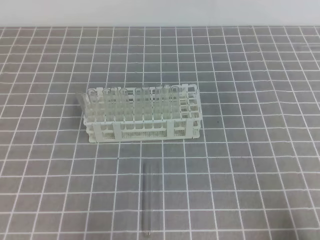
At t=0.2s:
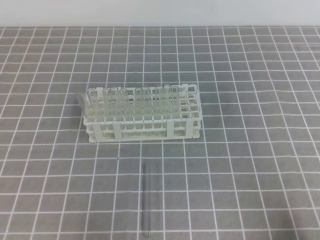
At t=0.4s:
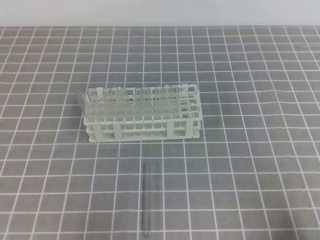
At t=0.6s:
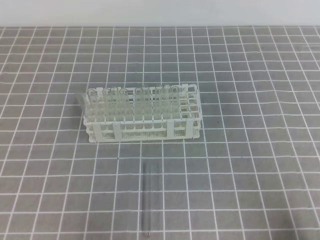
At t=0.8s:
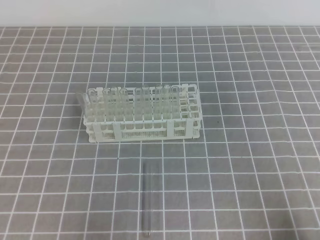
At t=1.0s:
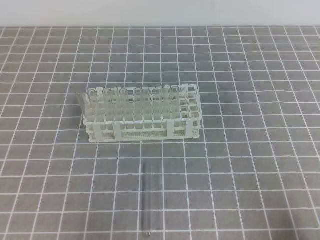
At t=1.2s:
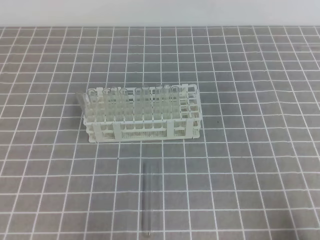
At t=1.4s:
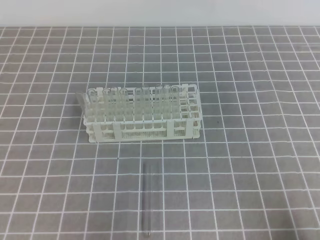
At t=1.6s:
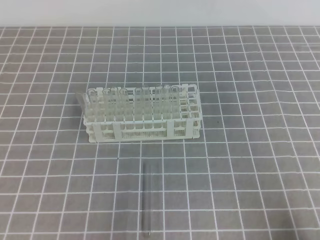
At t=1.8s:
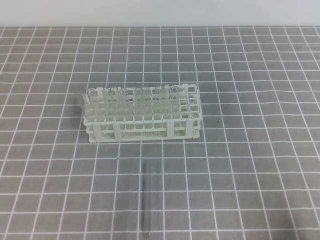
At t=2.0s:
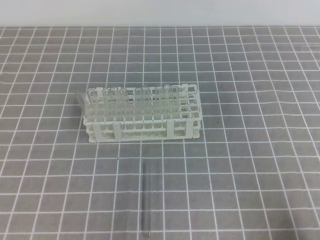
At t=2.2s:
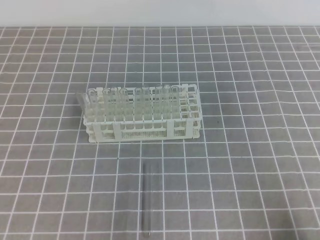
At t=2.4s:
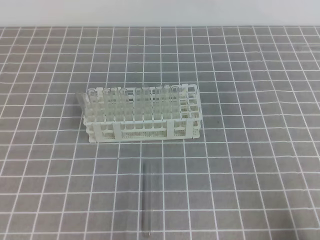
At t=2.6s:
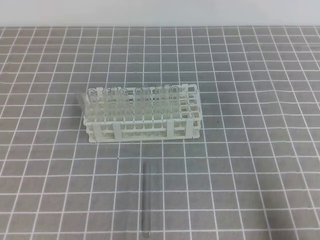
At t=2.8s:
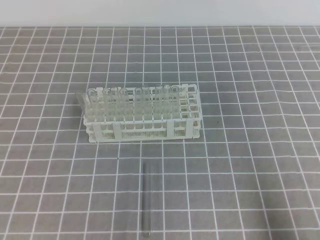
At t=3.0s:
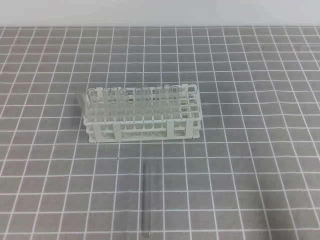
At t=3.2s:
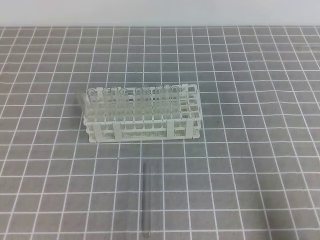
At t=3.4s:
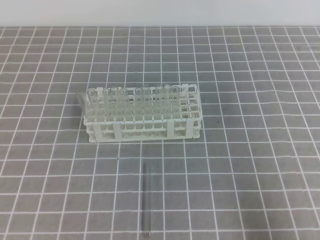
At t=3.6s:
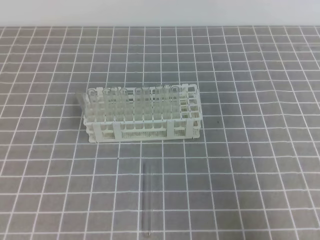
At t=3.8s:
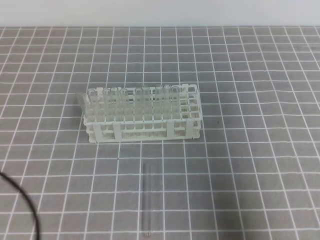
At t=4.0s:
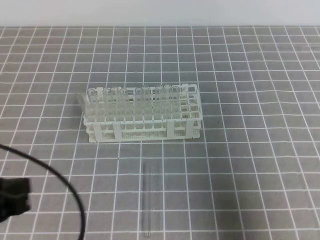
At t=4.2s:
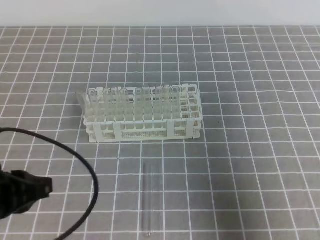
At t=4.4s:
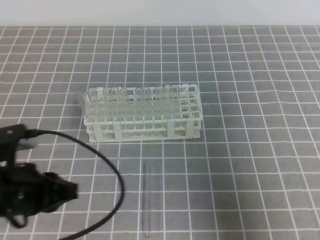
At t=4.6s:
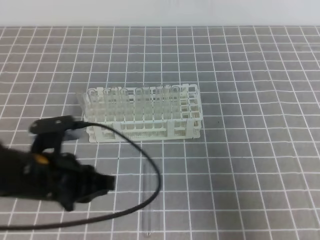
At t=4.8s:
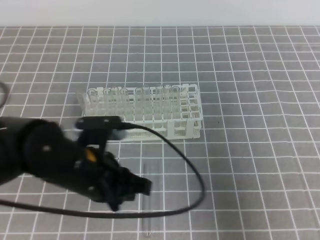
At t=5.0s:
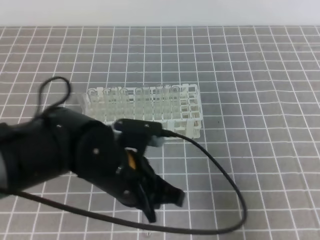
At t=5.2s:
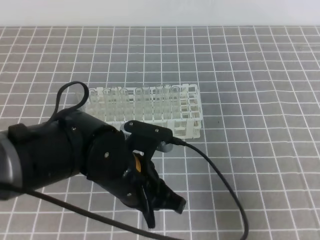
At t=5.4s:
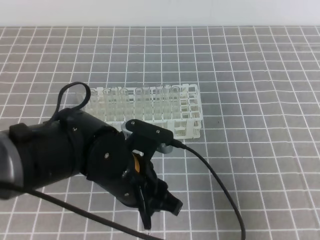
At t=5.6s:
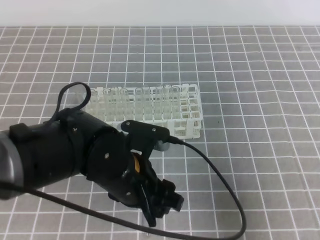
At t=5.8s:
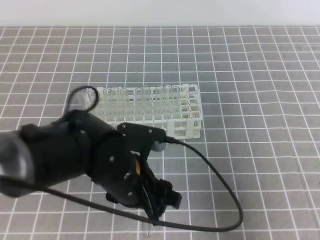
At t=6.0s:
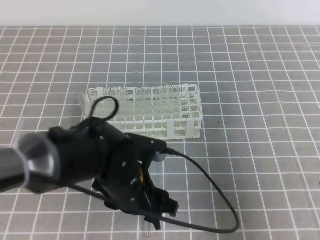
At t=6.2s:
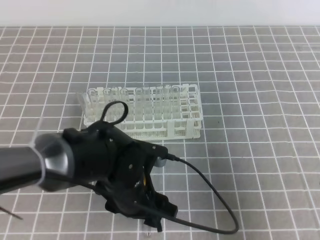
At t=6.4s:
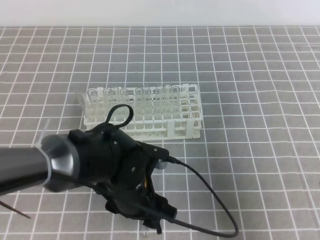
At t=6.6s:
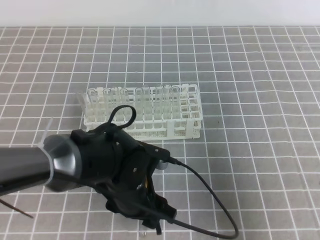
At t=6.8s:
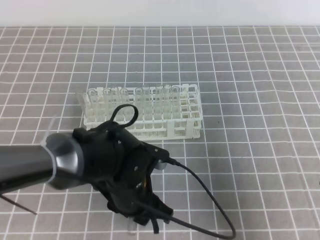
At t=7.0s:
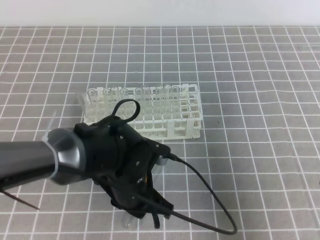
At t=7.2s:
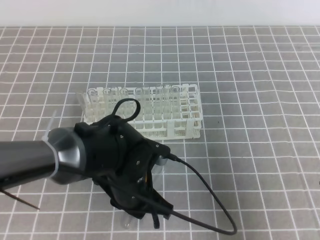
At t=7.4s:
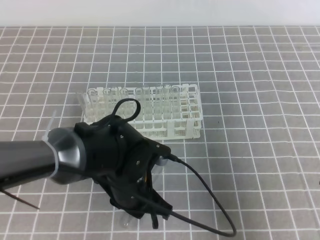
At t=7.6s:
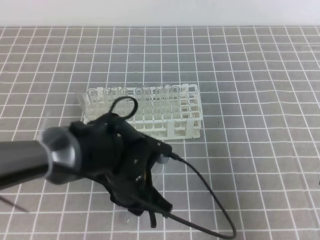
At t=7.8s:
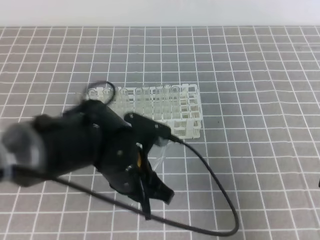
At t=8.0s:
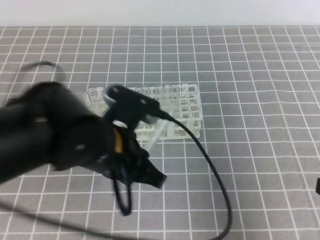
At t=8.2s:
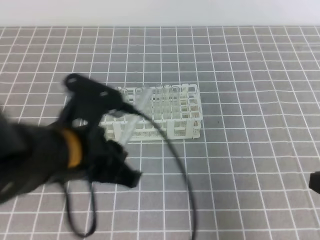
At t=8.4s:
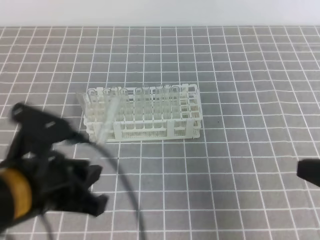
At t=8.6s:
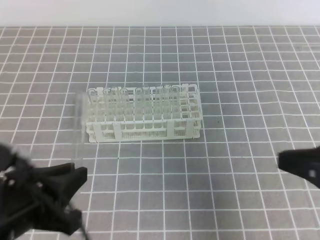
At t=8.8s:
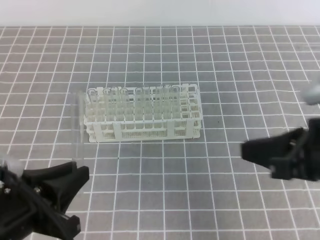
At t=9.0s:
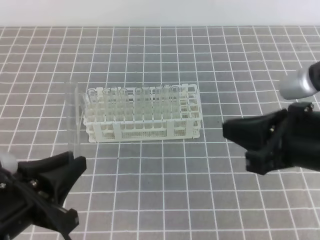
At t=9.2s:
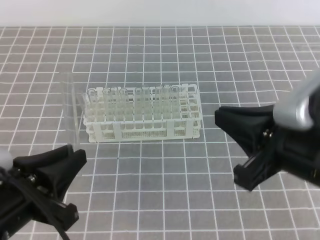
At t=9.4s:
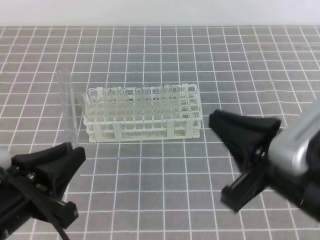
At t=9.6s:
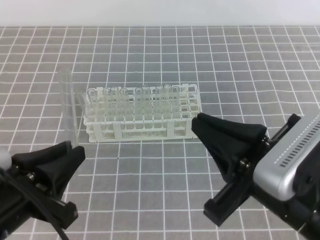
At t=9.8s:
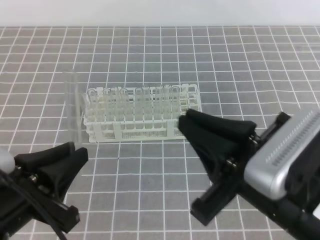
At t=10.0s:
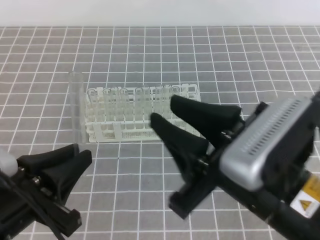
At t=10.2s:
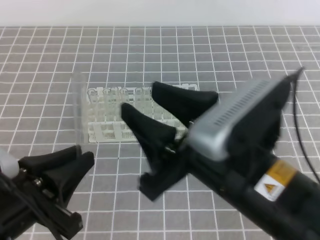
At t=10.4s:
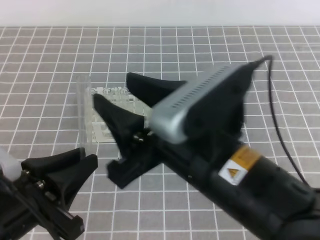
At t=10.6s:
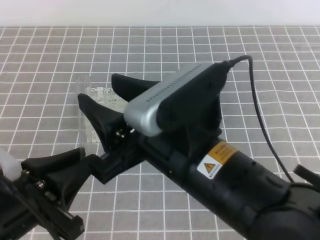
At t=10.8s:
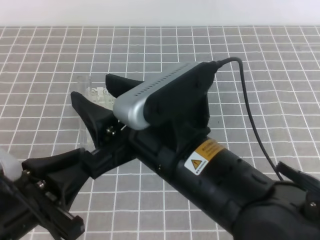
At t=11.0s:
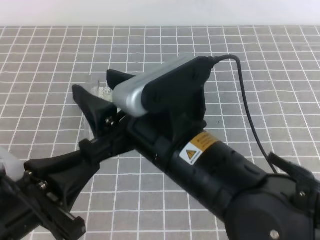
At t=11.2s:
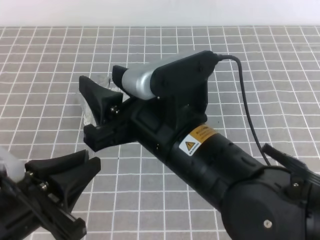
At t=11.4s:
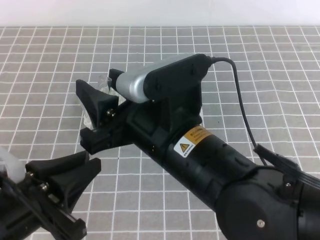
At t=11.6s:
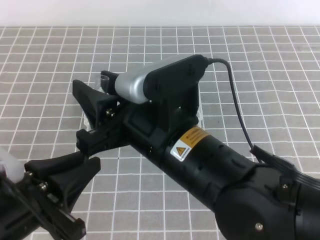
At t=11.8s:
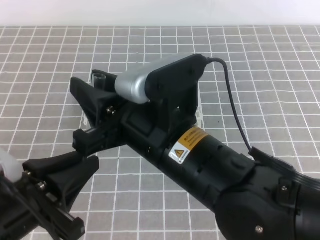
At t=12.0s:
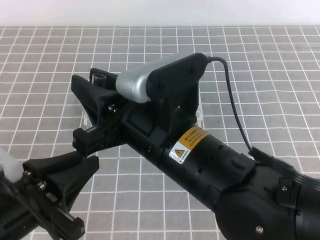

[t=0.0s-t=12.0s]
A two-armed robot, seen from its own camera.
t=3.0s to t=4.4s: The right gripper shifts roughly 10 cm forward and upward, while the left gripper is displaced forward and to the right by some 15 cm.
t=4.4s to t=6.0s: The left gripper is displaced to the right by approximately 15 cm, and opens up.
t=6.0s to t=7.6s: The left gripper closes up.
t=7.6s to t=9.0s: The right gripper moves to the left and upward, about 10 cm; the left gripper is displaced to the left, backward and upward by some 20 cm.
t=9.0s to t=10.4s: The right gripper goes approximately 15 cm to the left, and opens up.
t=10.4s to t=12.0s: The right gripper changes place by some 5 cm, and closes.

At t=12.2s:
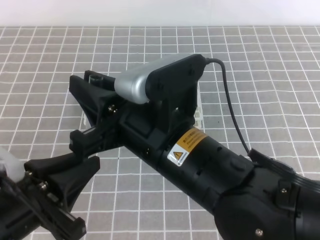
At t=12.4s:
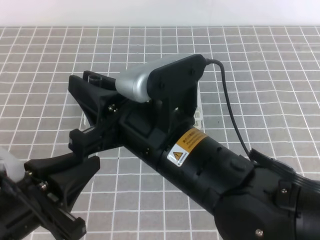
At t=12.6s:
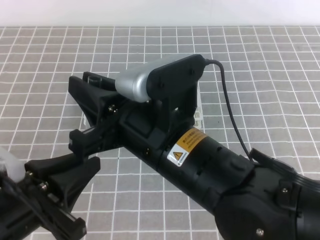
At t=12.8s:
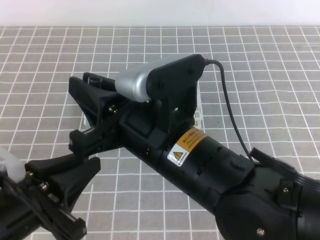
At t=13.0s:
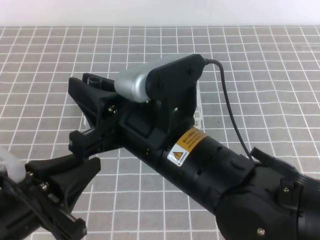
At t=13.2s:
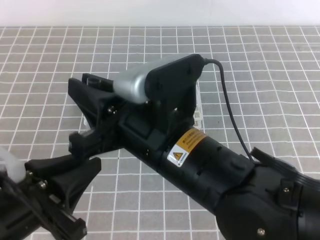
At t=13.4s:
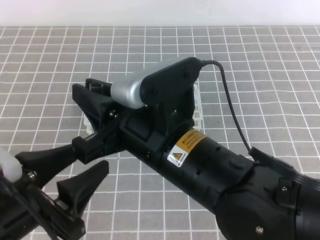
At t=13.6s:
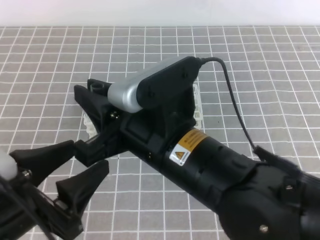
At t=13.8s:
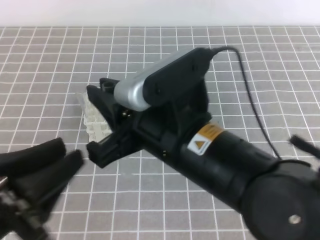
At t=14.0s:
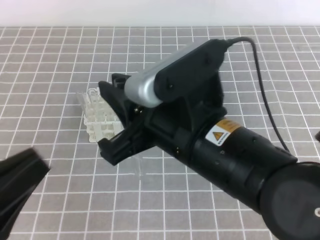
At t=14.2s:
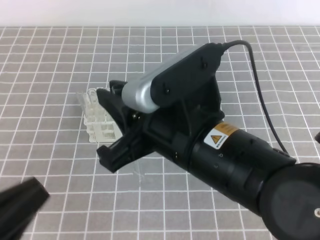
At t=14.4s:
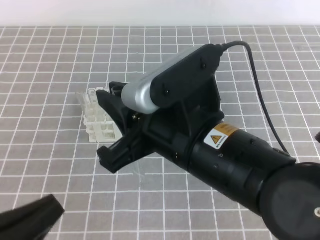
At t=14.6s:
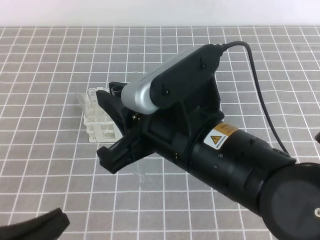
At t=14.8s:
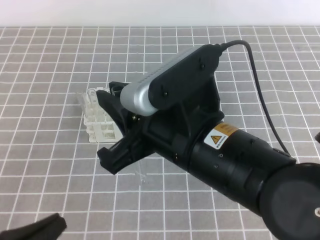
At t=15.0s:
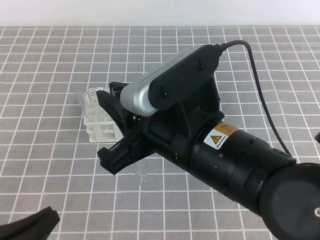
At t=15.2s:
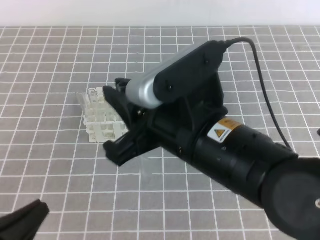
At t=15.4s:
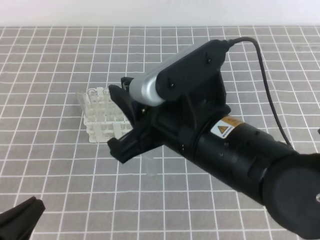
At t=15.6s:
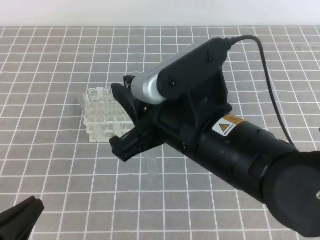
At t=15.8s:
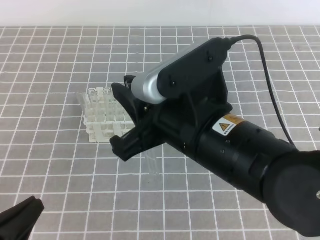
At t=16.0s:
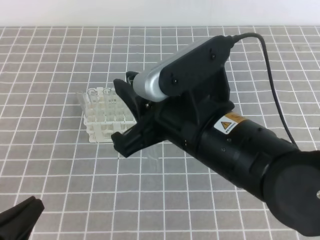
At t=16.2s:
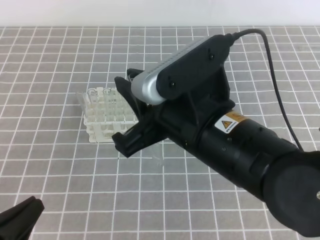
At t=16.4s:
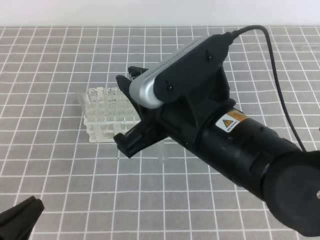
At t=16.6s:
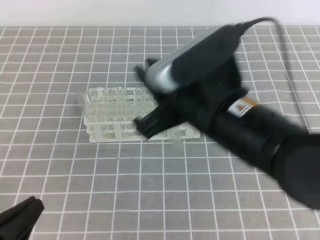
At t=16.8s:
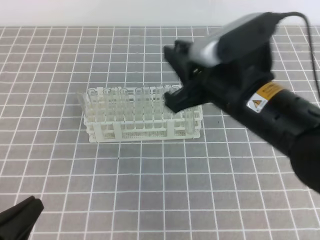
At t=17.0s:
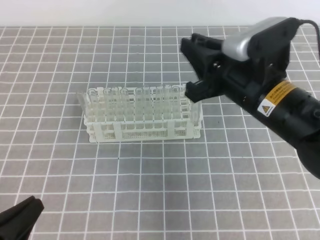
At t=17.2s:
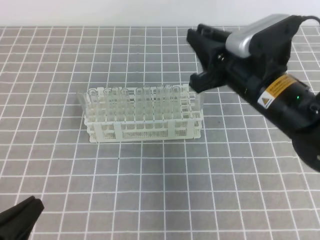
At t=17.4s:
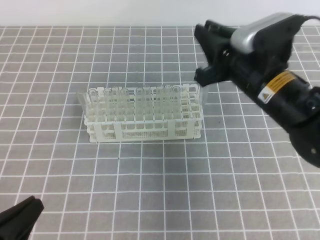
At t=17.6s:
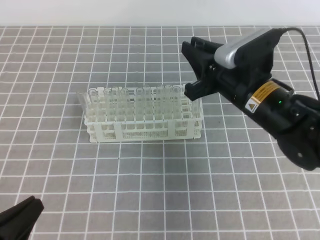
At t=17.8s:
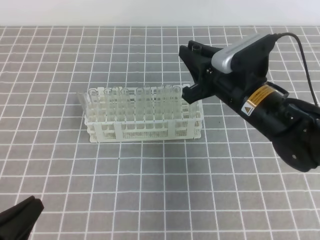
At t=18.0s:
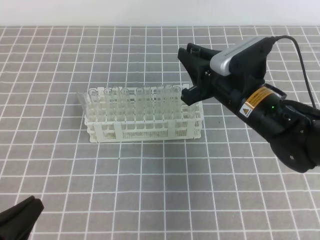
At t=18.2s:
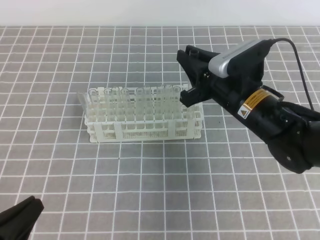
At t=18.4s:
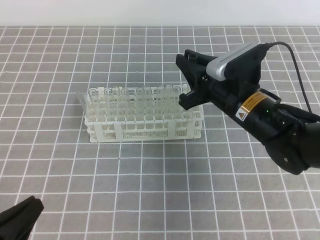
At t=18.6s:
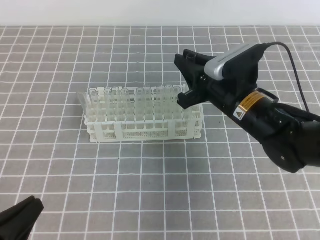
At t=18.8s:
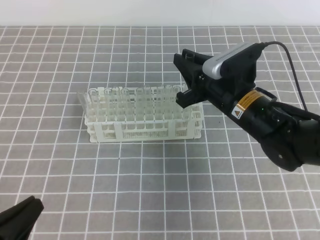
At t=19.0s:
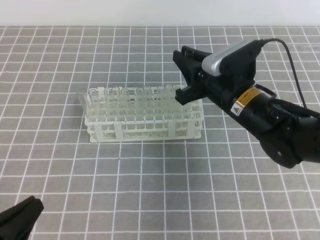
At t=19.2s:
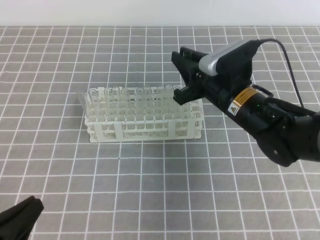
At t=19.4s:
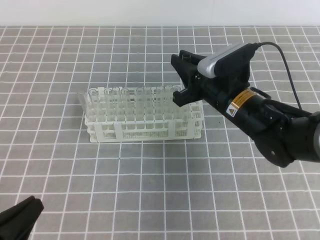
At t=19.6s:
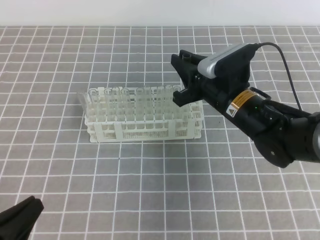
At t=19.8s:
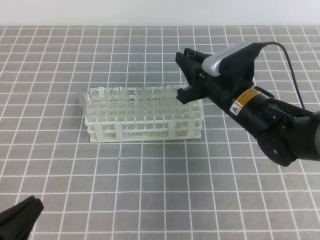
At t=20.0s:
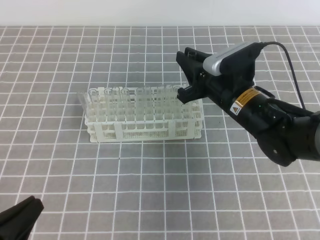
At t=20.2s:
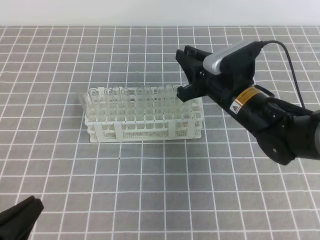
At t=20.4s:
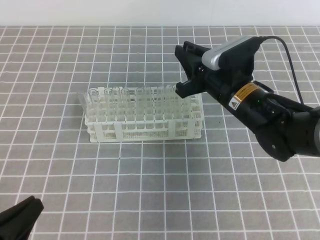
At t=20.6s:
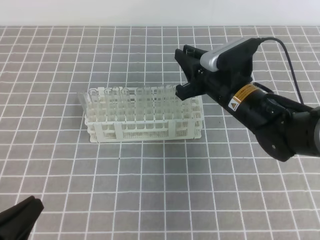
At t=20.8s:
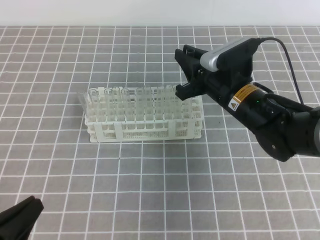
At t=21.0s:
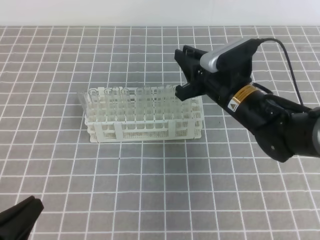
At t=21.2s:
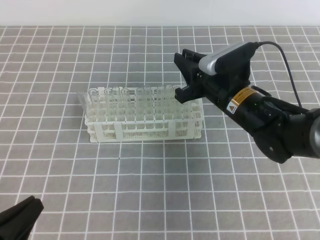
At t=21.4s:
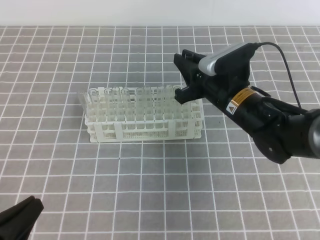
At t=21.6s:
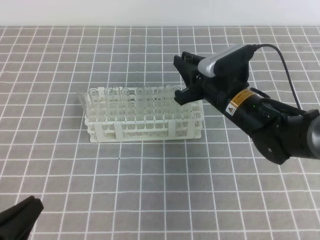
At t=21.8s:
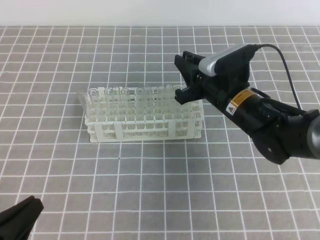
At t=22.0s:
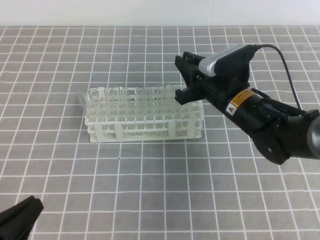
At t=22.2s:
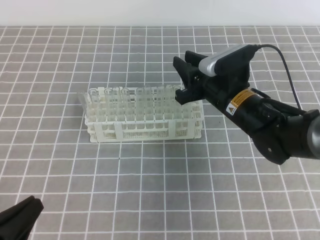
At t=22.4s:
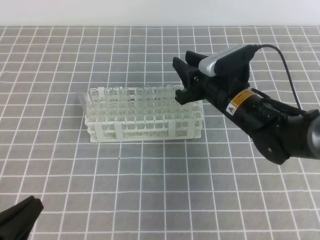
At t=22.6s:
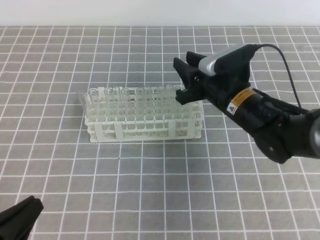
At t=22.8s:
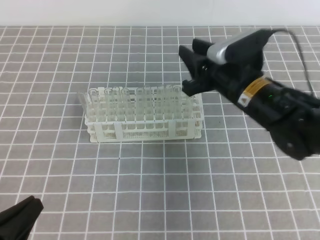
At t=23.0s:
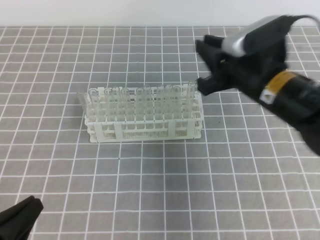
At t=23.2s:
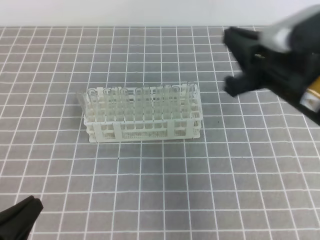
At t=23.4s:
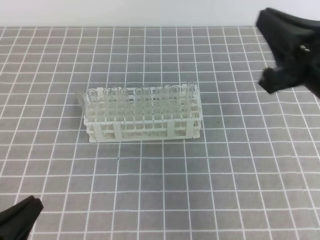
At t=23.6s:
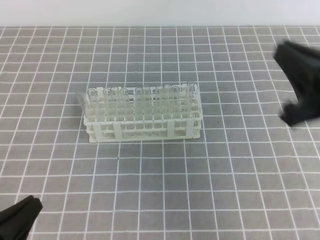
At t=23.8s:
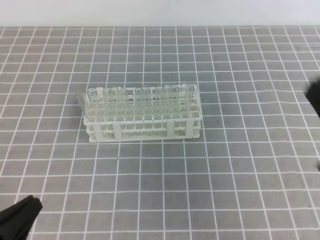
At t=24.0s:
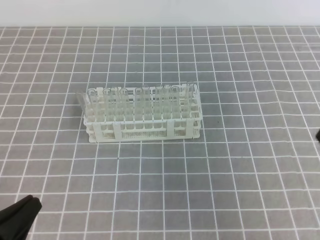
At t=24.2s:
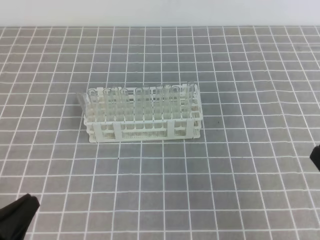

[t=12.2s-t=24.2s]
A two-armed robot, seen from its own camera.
t=12.2s to t=13.8s: The left gripper opens.
t=13.8s to t=15.2s: The left gripper heads downward, covering roughly 10 cm, and closes its fingers.
t=16.6s to t=18.2s: The right gripper heads forward and downward, covering approximately 15 cm.
t=18.2s to t=19.8s: The grippers stay close to where they were, moving slightly.
t=19.8s to t=21.2s: The two grippers keep their place.
t=21.2s to t=22.6s: The right gripper opens.
t=22.6s to t=24.2s: The right gripper goes some 30 cm backward and to the right, and closes up.
